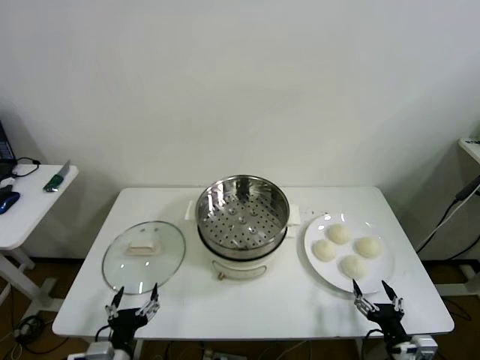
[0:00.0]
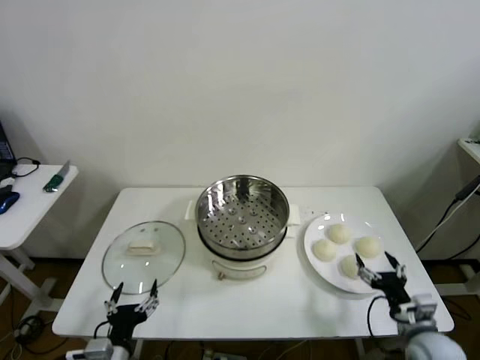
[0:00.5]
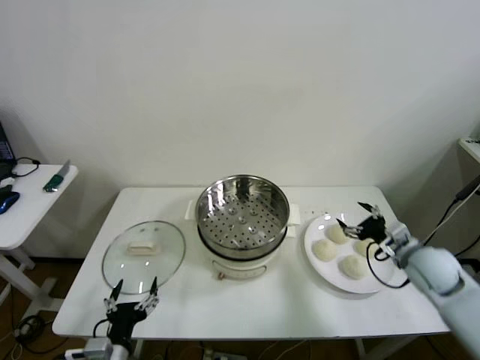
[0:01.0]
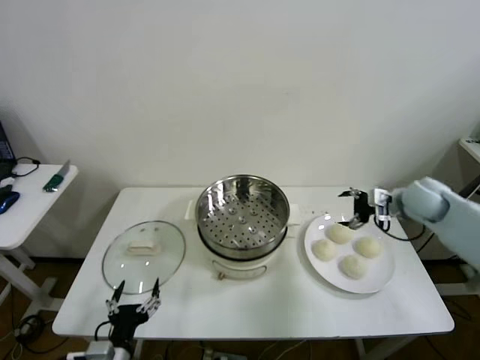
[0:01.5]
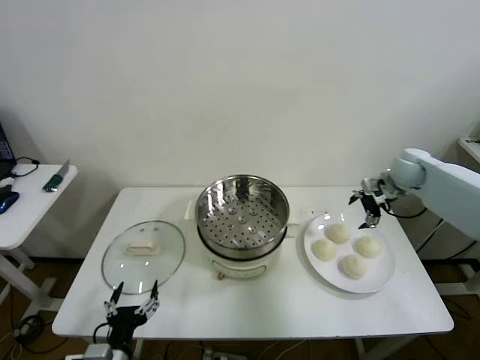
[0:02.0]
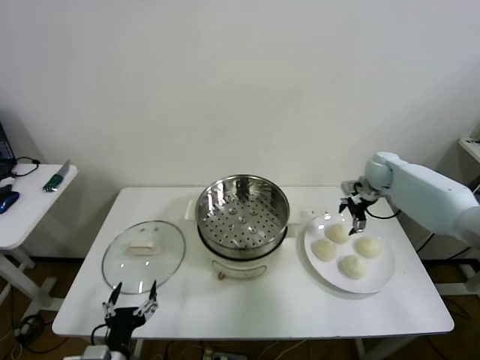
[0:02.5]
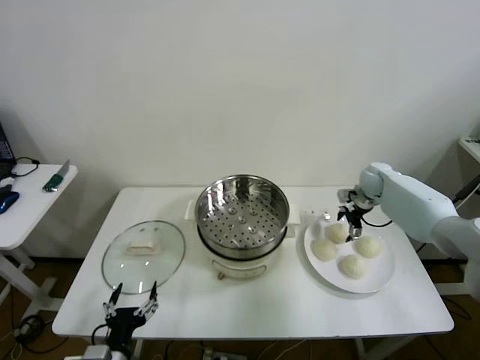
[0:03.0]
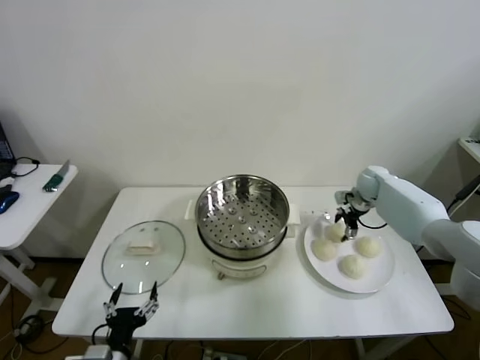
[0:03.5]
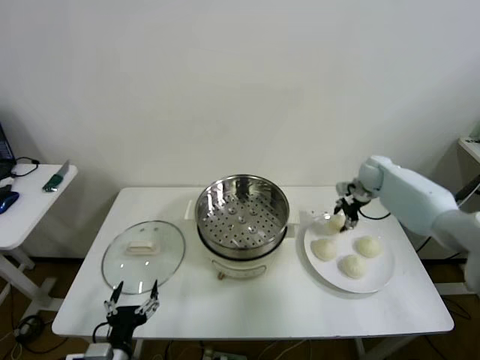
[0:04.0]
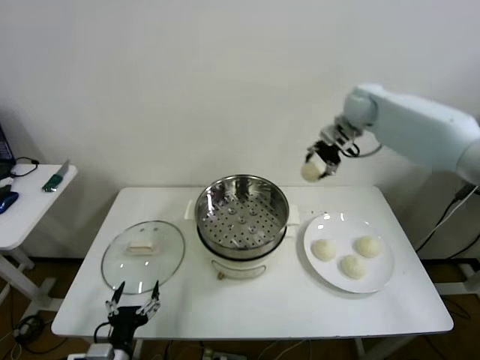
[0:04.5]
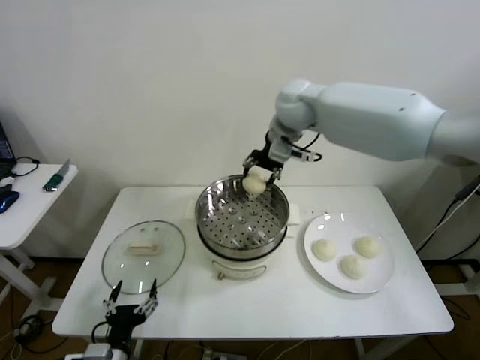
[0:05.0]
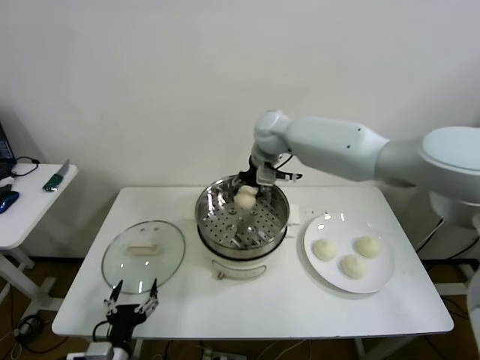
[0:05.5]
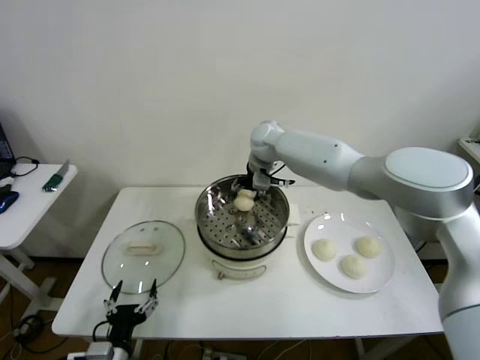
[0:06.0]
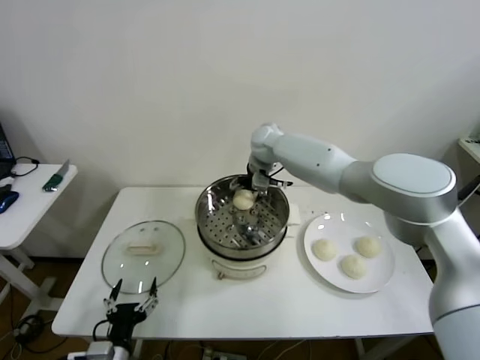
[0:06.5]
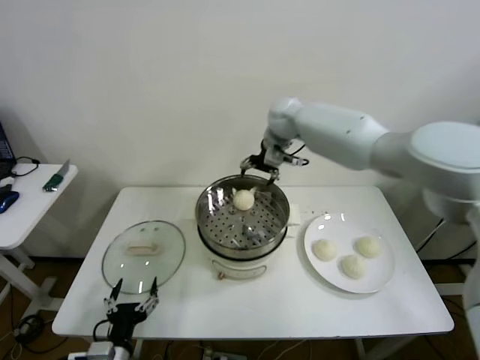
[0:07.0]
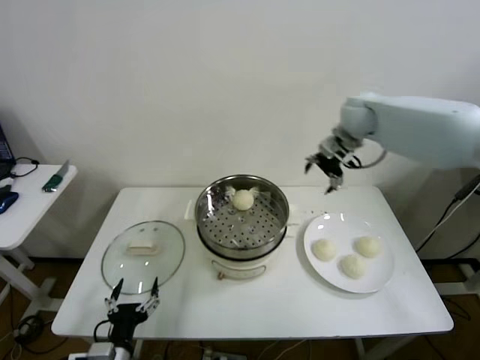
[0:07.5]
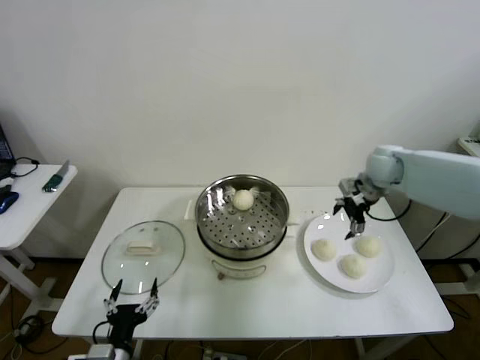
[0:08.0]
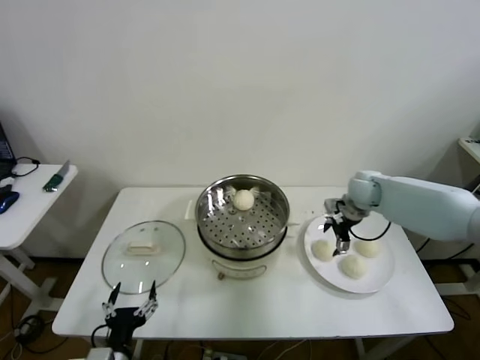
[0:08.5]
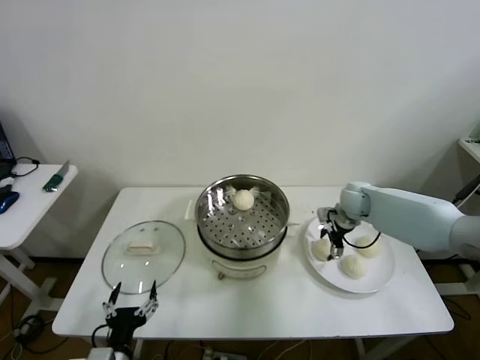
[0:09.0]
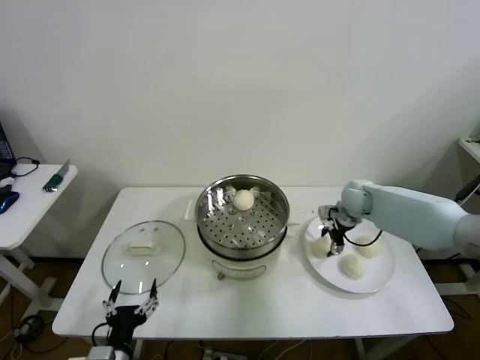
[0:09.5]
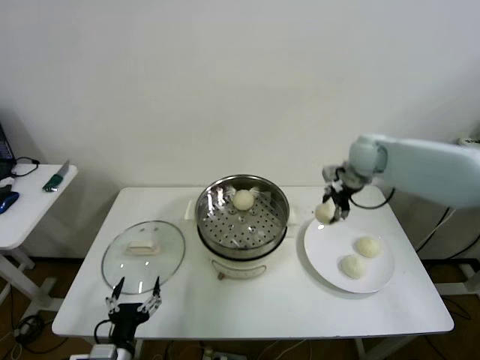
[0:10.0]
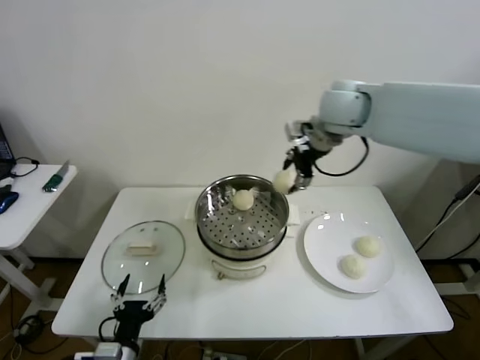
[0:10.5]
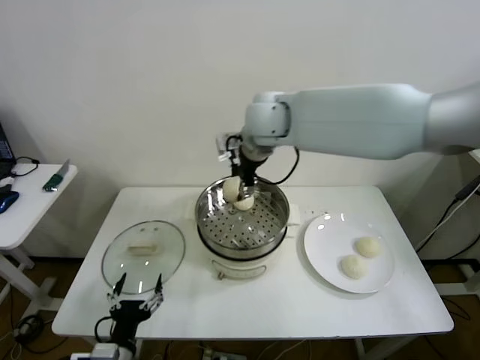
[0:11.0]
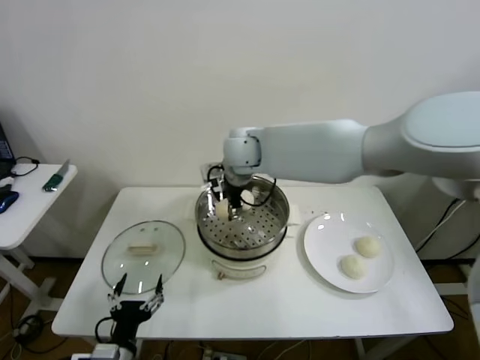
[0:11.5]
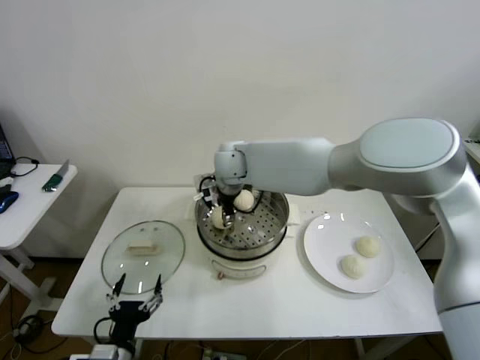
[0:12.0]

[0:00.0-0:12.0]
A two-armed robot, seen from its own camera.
Step, 0.0 to 3.5 s: Grasp the baozi in the plate with right gripper.
Step, 4.0 to 6.0 s: Place the baozi on the steamer with right gripper.
Step, 6.5 to 9.0 s: Grasp the baozi in the plate with right gripper.
2.0 to 4.0 s: The right gripper moves forward, some 5 cm, travels downward and back again, roughly 10 cm each way, and closes up.
4.0 to 6.0 s: The right gripper travels to the left by approximately 30 cm.
6.0 to 8.0 s: The right gripper travels to the right by about 25 cm, and opens up.
8.0 to 10.0 s: The right gripper goes roughly 10 cm upward and to the left, and closes.
10.0 to 12.0 s: The right gripper travels to the left by some 30 cm.

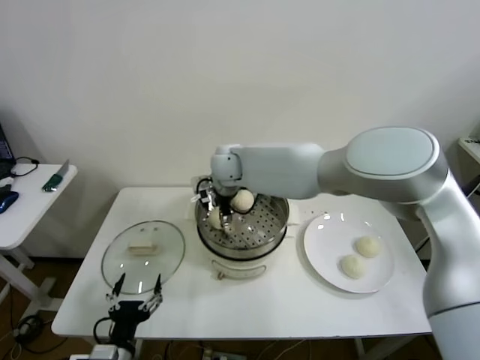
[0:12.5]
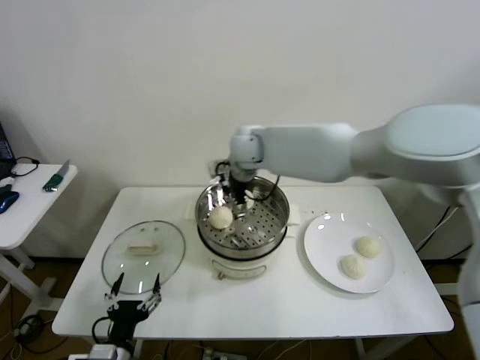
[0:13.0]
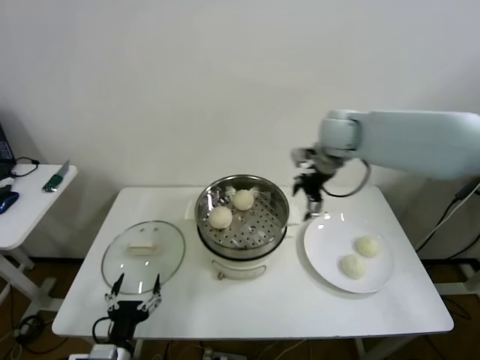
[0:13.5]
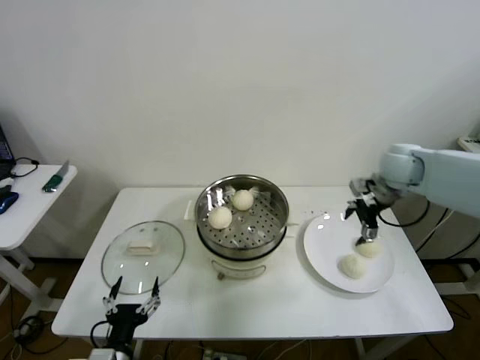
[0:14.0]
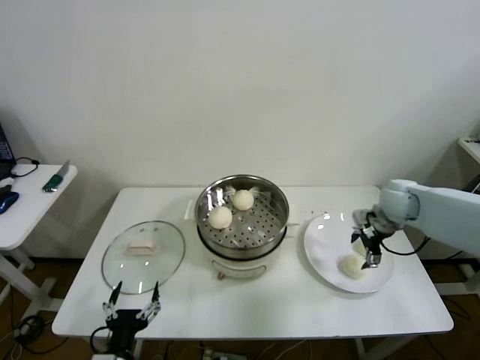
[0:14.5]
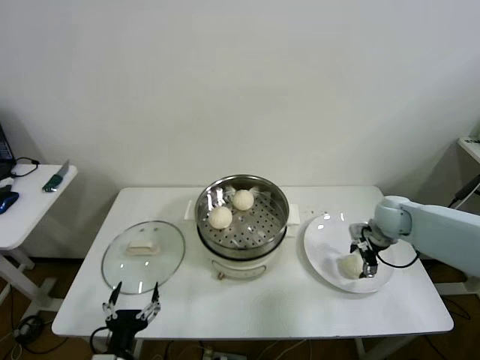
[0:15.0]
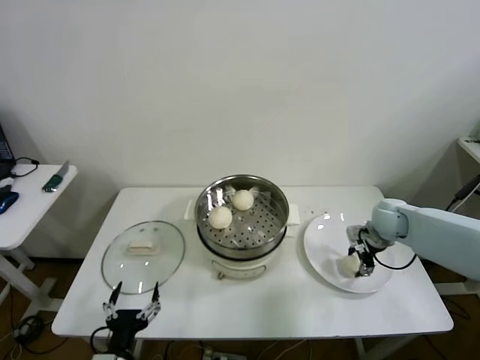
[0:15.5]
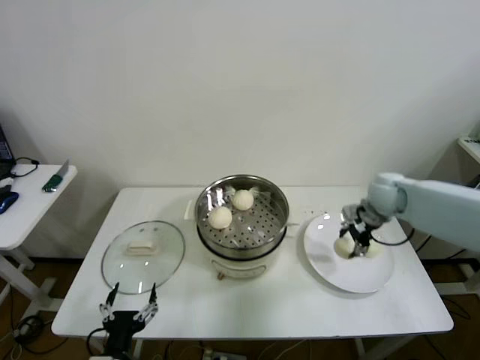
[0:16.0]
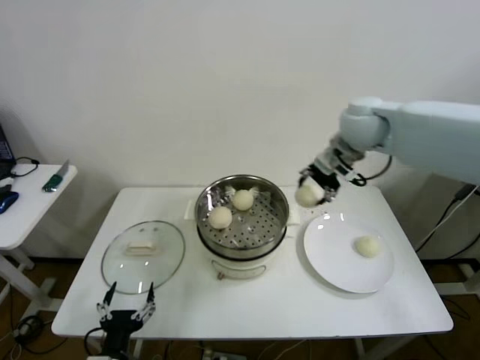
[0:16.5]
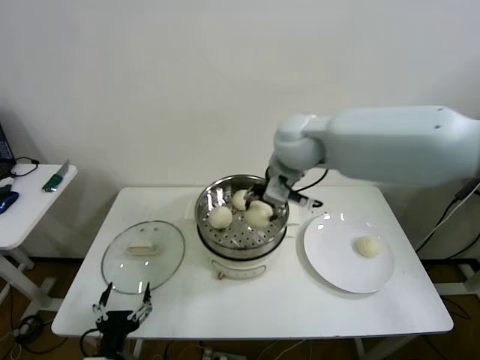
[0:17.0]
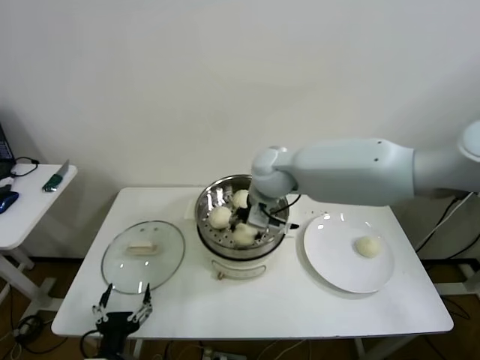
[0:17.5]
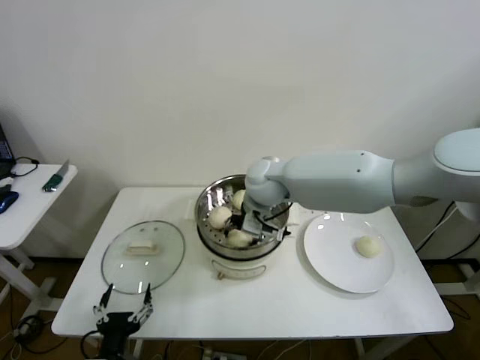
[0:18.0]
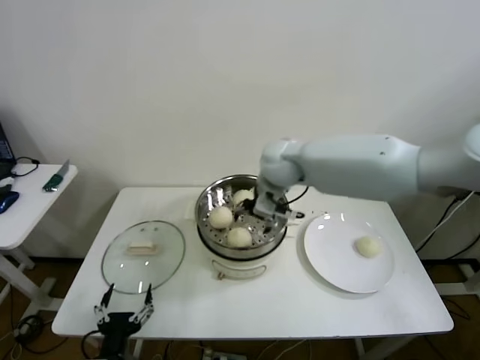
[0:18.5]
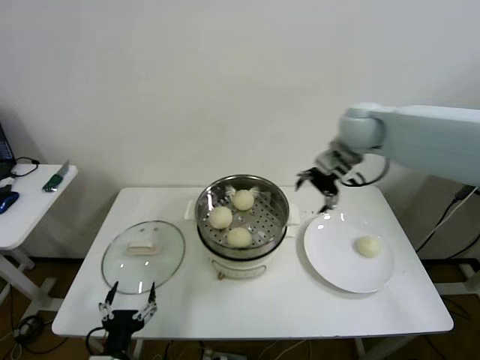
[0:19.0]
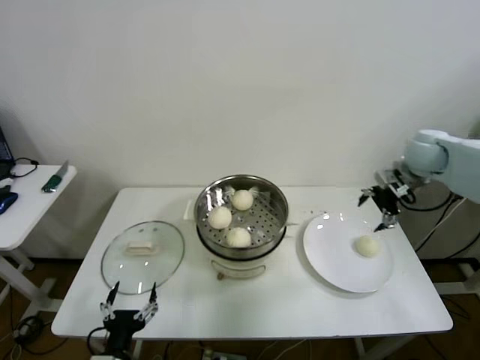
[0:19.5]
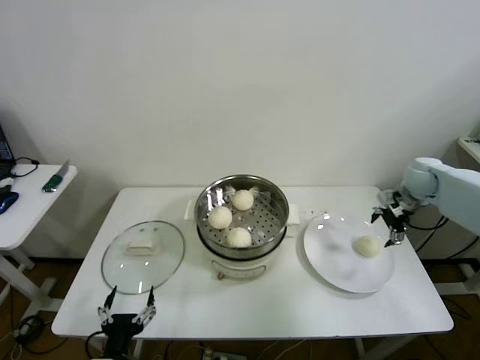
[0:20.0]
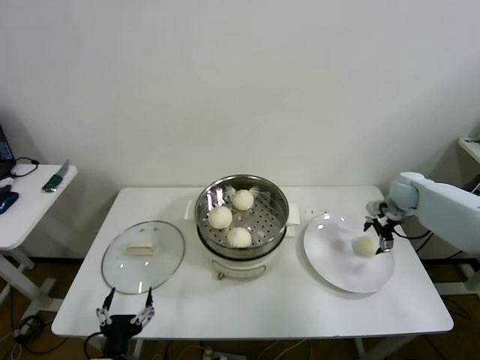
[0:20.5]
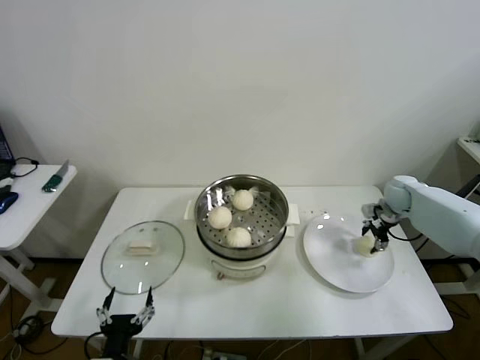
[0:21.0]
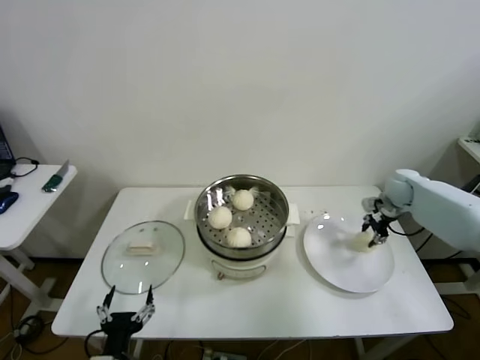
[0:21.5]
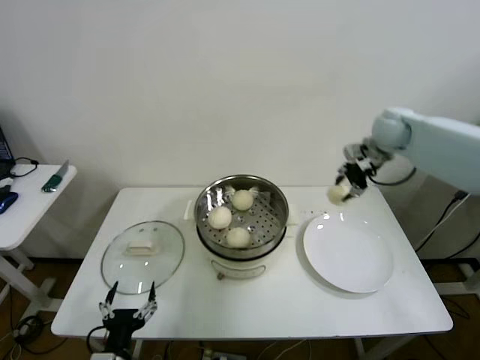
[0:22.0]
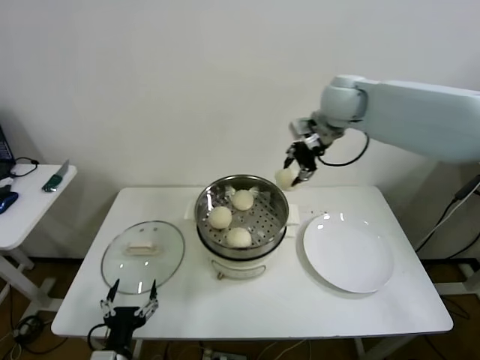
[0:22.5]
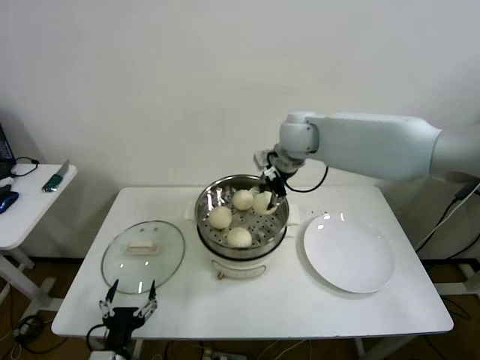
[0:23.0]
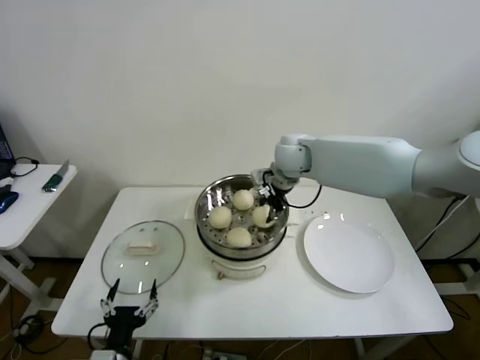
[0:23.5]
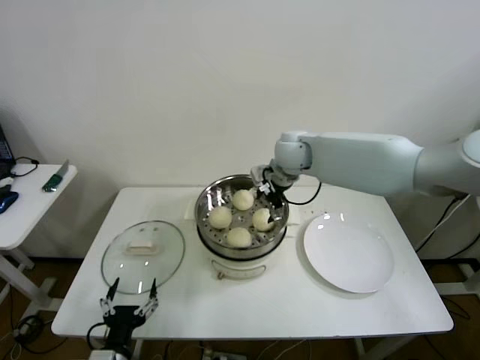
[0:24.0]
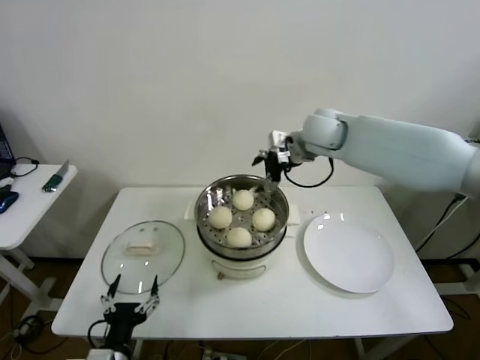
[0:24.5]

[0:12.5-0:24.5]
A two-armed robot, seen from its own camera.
Step, 13.0 to 15.5 s: Grasp the baozi in the plate with right gripper.
Step, 16.0 to 18.0 s: Place the baozi on the steamer with right gripper.
Step, 18.5 to 21.0 s: Grasp the baozi in the plate with right gripper.
Step, 21.5 to 23.5 s: Place the baozi on the steamer with right gripper.
12.5 to 14.5 s: The right gripper travels to the right by approximately 40 cm.
14.5 to 16.5 s: The right gripper travels upward and to the left by approximately 25 cm, and closes up.
16.5 to 18.5 s: The right gripper shifts roughly 15 cm to the left and downward, and opens up.
18.5 to 20.5 s: The right gripper heads to the right and downward, covering about 40 cm.
20.5 to 22.5 s: The right gripper is displaced upward and to the left by about 35 cm, and closes its fingers.
22.5 to 24.5 s: The right gripper goes roughly 5 cm downward, and opens its fingers.

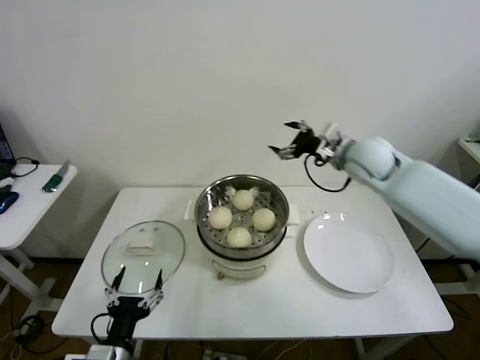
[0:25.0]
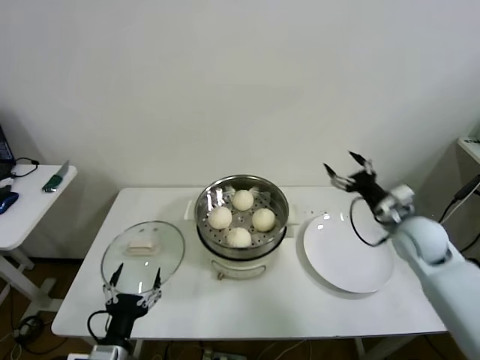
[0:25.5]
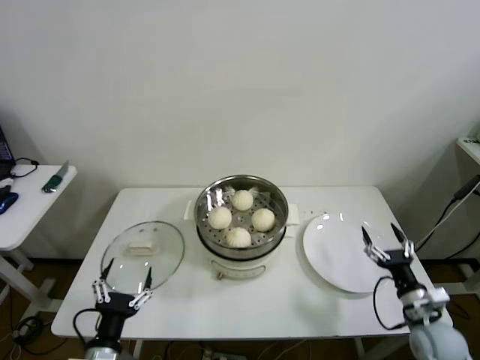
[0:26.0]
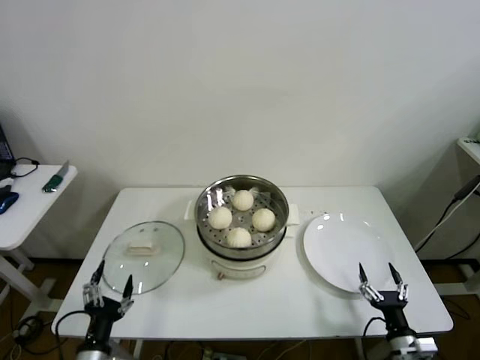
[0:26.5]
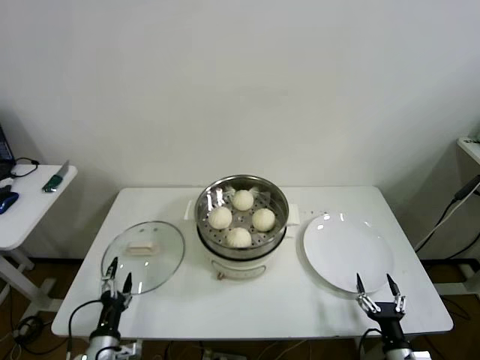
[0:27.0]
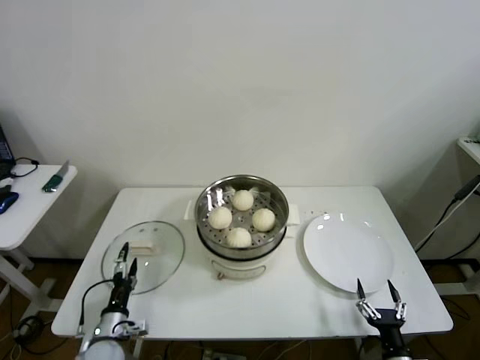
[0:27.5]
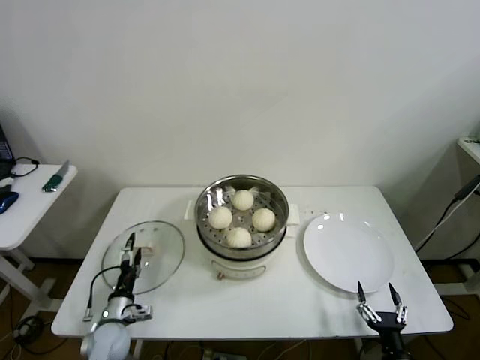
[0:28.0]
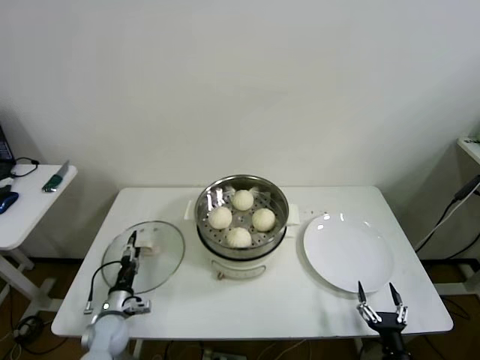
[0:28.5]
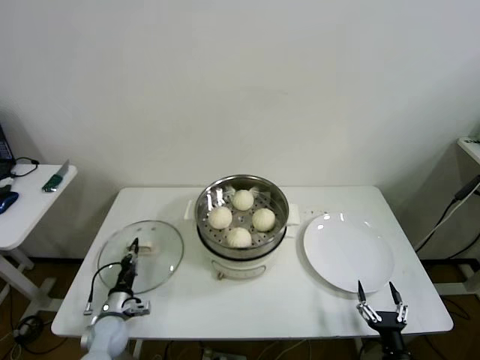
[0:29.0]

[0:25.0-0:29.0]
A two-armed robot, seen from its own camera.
Step, 25.0 to 29.0 s: Grasp the pot lid with left gripper.
25.0 to 27.0 s: The right gripper goes some 50 cm downward and backward; the left gripper moves downward and to the left, roughly 15 cm.
27.0 to 29.0 s: The left gripper shifts some 15 cm forward and downward, and closes.
